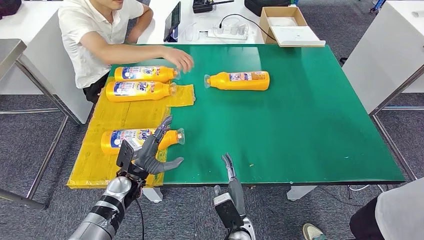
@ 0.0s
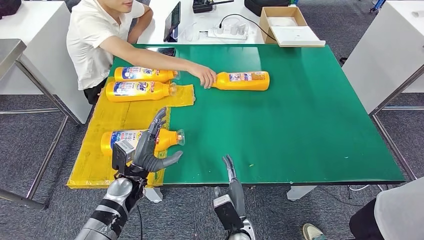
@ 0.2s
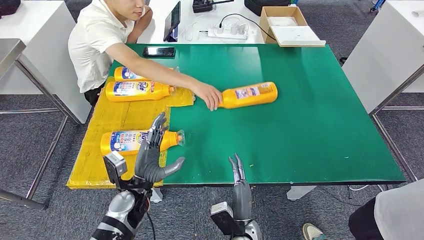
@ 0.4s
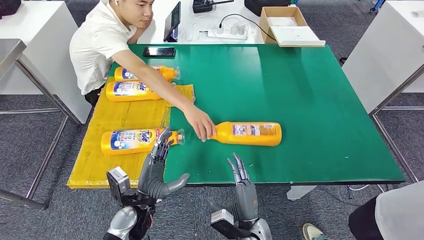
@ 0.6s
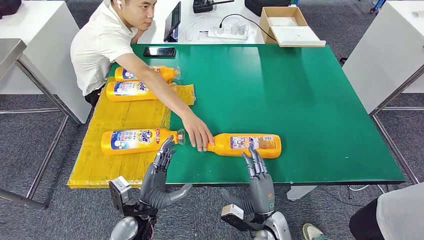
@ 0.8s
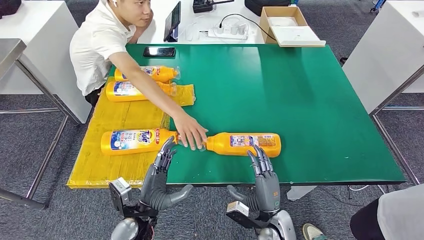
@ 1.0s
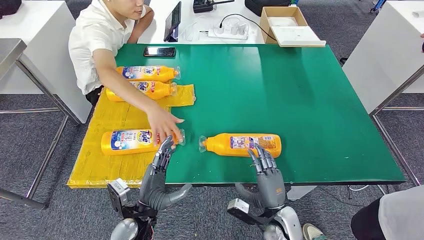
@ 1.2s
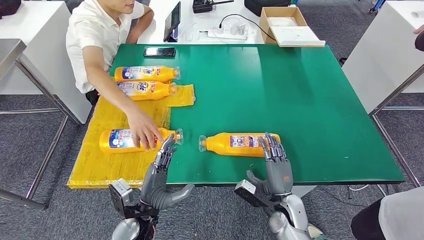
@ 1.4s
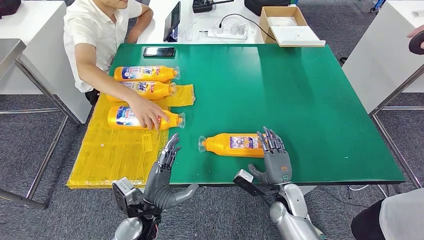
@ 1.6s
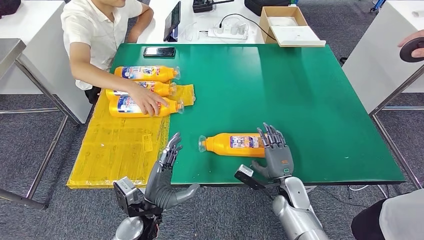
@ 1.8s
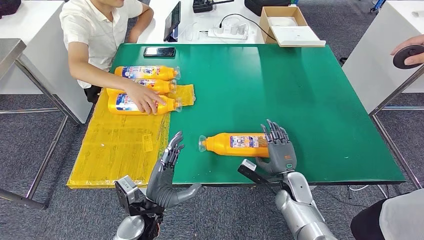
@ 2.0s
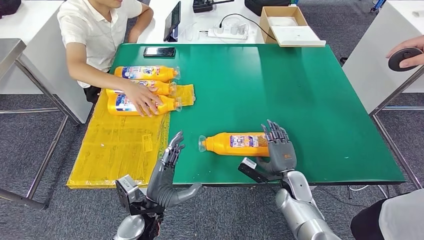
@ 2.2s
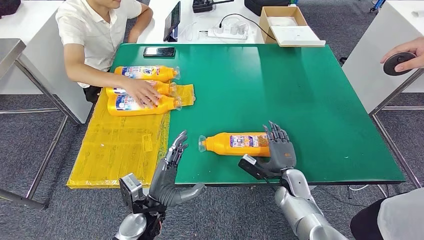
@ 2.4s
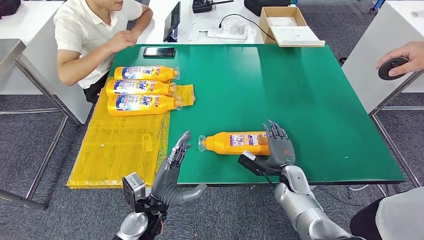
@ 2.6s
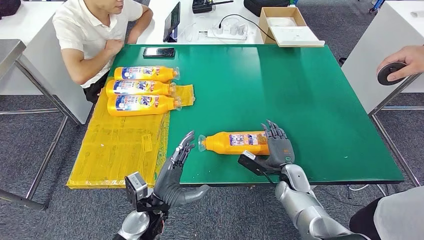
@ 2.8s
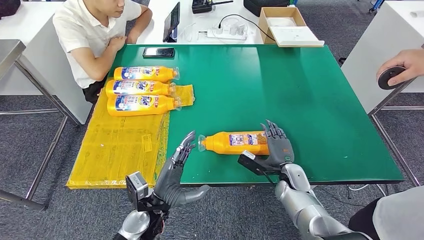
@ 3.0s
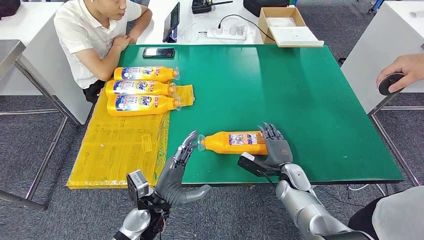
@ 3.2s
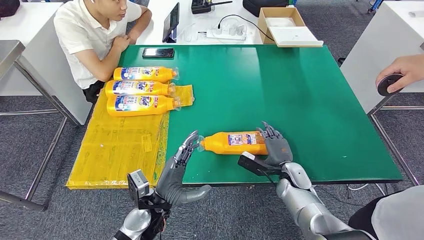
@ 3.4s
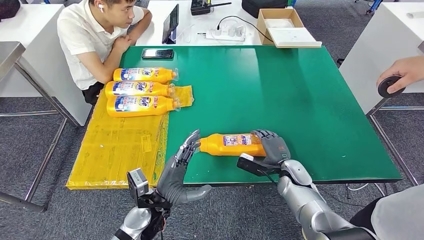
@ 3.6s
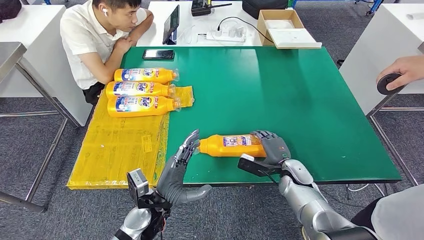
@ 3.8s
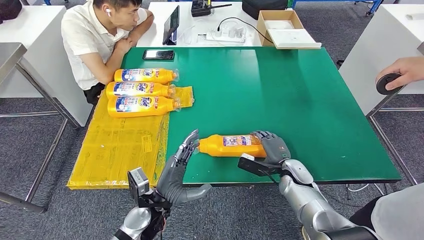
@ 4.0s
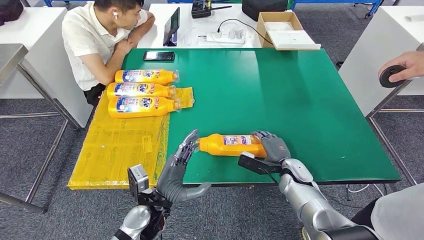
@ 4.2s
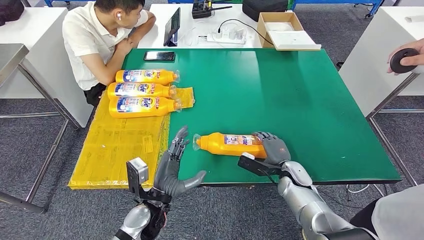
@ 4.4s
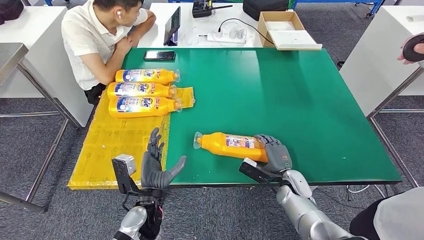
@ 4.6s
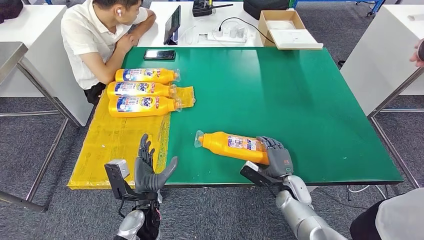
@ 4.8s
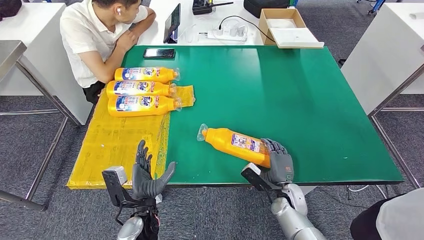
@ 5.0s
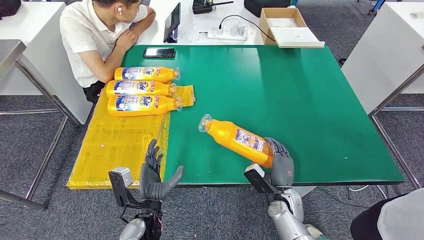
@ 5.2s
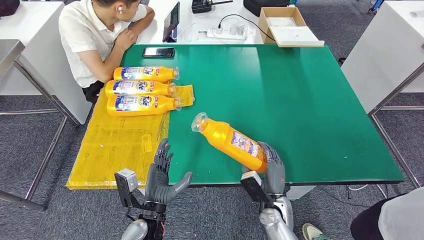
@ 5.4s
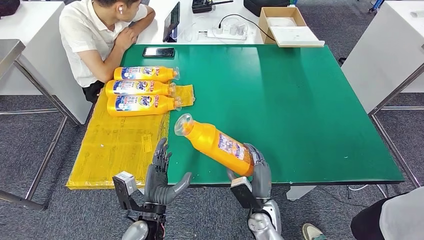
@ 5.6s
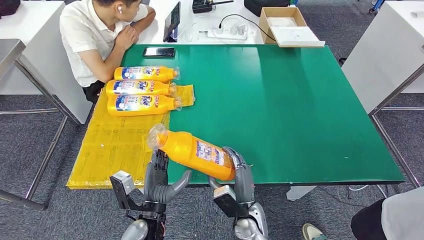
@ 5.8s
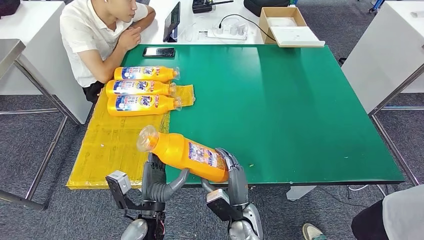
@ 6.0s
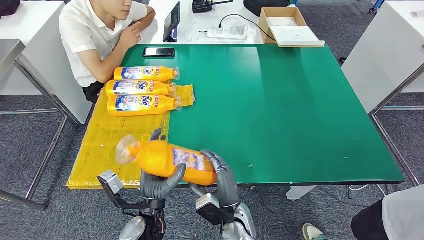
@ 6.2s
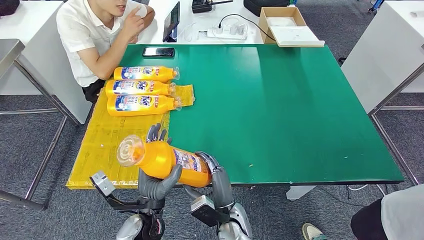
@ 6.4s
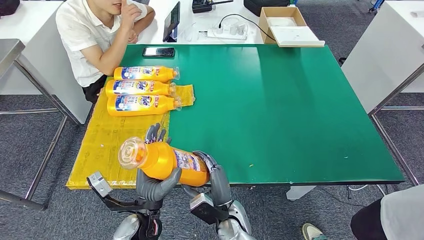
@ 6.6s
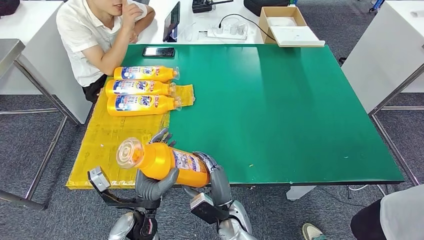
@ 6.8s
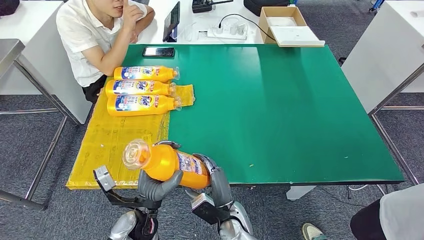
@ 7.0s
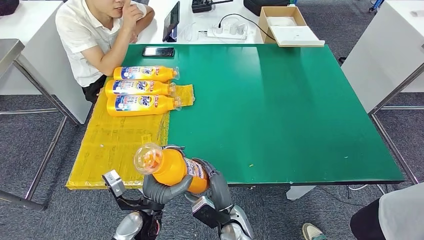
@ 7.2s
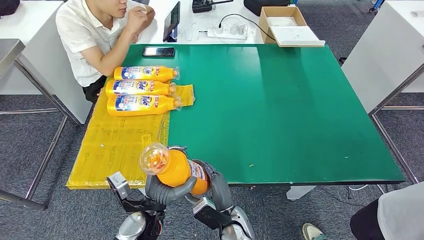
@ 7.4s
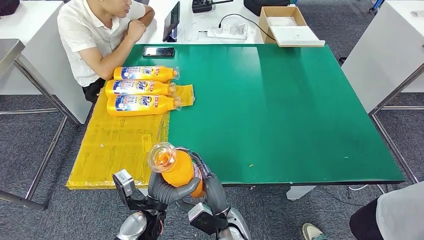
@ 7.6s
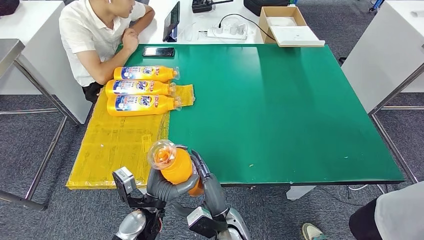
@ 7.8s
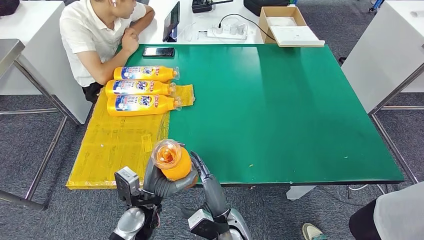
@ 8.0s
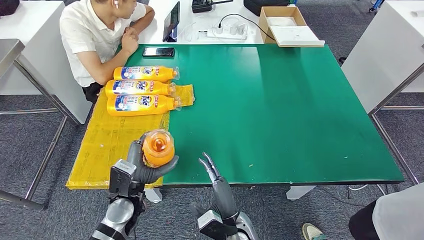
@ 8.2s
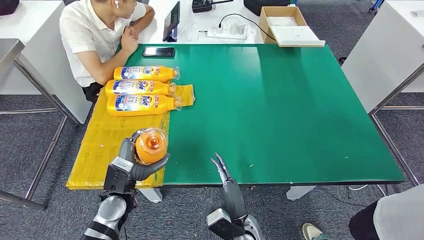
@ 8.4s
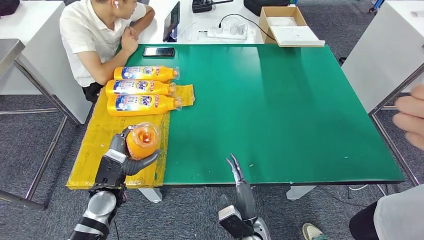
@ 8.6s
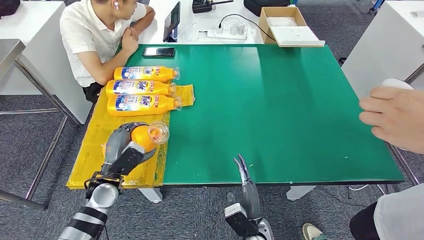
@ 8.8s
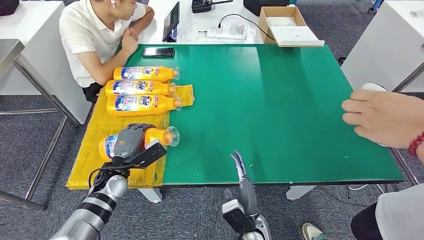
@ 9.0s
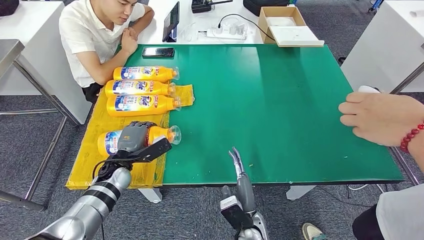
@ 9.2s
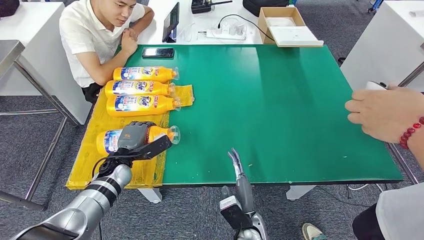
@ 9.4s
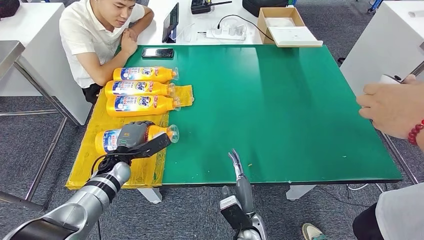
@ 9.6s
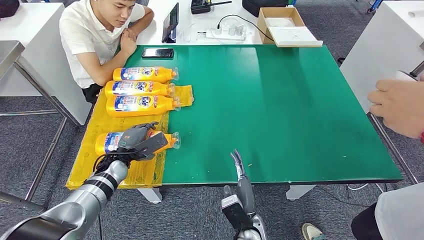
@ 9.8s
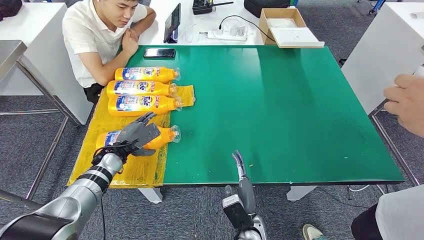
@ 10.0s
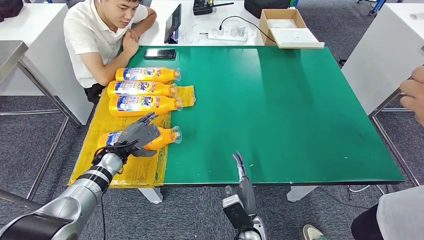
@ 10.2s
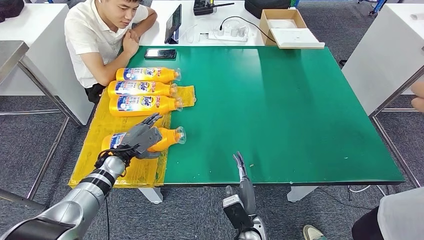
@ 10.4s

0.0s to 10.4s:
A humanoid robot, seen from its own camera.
Step, 0.4s to 5.6s: Pick up the fast-moving consumer goods bottle from the table.
1.4s to 3.0s: The right hand moves forward, about 10 cm.
7.4s to 9.0s: The right hand moves to the right, about 5 cm. The left hand is displaced to the left and forward by some 15 cm.

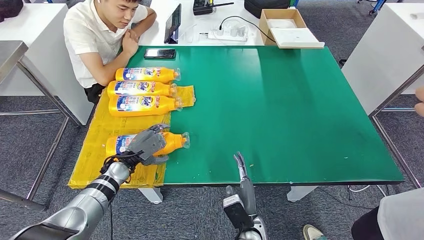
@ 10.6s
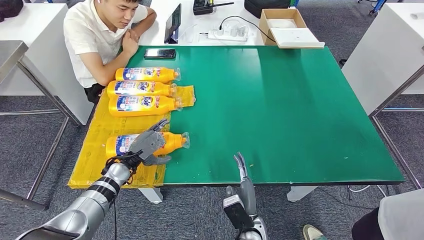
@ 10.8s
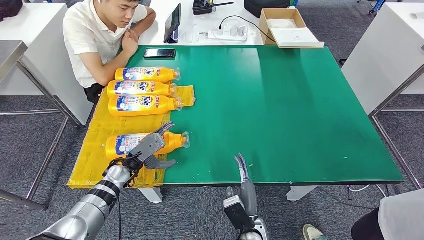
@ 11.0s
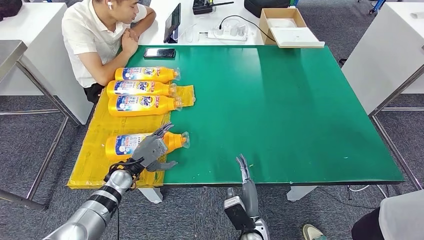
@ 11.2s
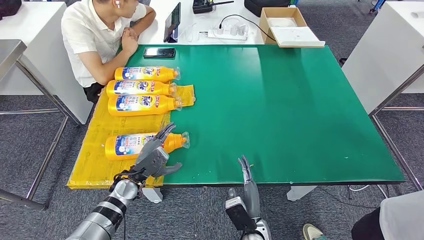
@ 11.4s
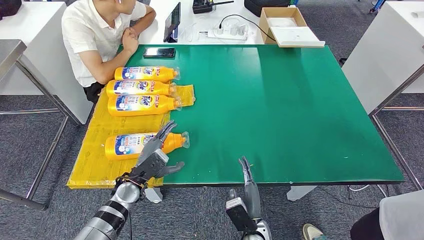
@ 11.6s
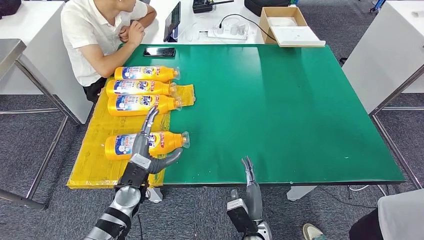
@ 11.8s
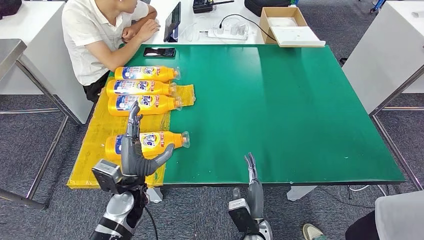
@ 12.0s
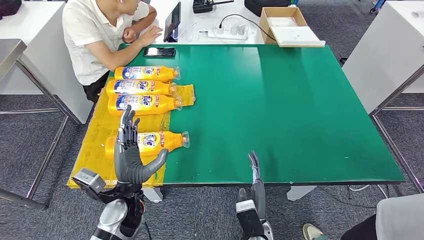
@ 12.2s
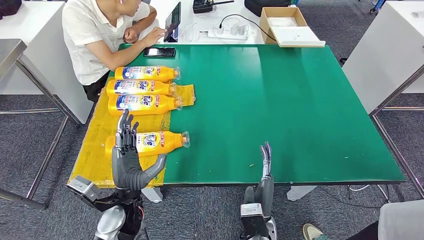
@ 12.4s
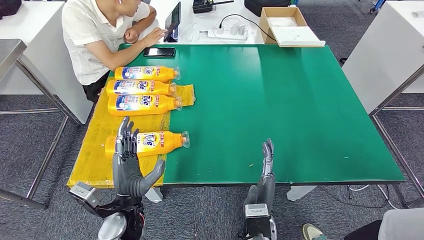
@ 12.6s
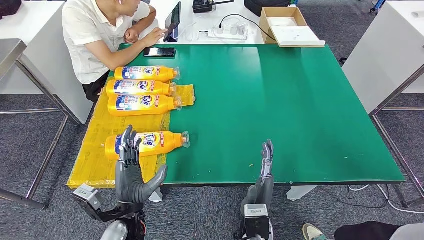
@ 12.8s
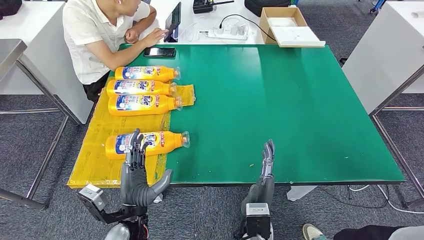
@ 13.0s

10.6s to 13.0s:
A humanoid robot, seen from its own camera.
Step, 10.6s to 13.0s: Flip the fast-moving consumer goods bottle to the front side.
10.6s to 11.8s: The left hand travels backward and to the right by approximately 10 cm.
11.8s to 13.0s: The right hand goes roughly 10 cm upward. Meanwhile the left hand moves backward, approximately 10 cm.
